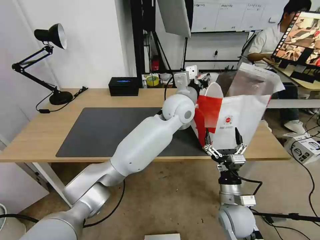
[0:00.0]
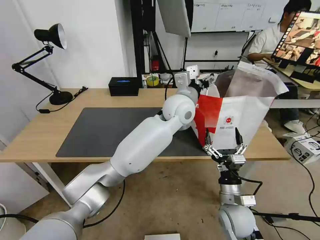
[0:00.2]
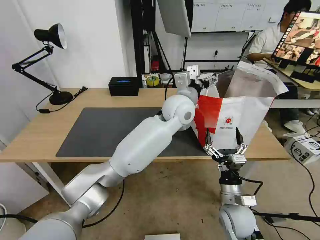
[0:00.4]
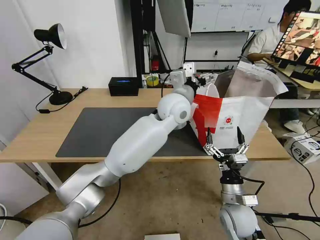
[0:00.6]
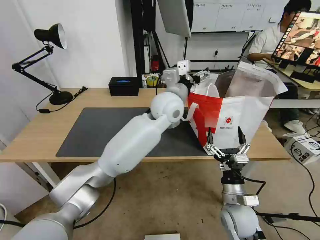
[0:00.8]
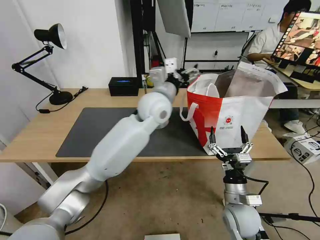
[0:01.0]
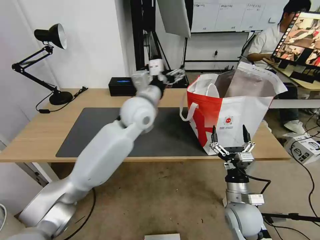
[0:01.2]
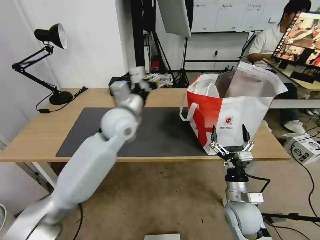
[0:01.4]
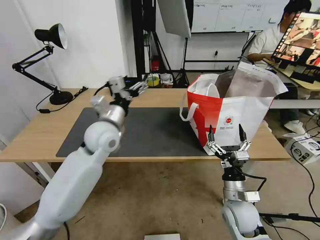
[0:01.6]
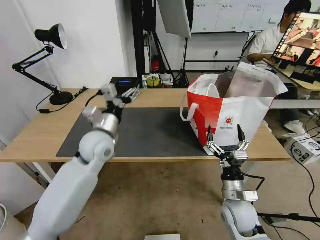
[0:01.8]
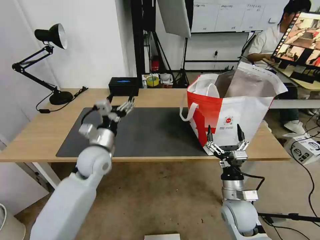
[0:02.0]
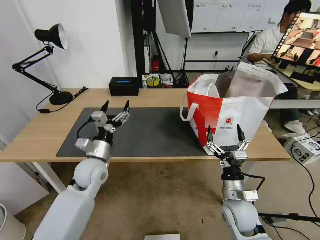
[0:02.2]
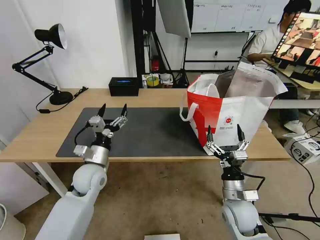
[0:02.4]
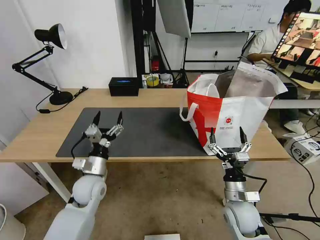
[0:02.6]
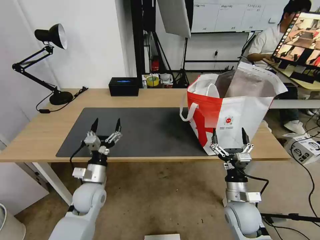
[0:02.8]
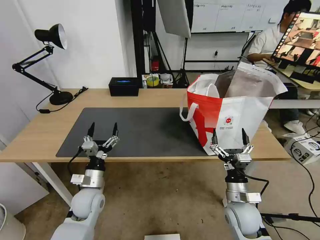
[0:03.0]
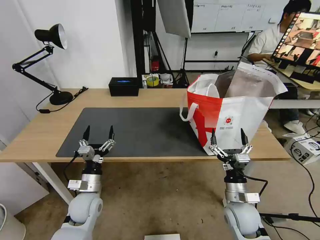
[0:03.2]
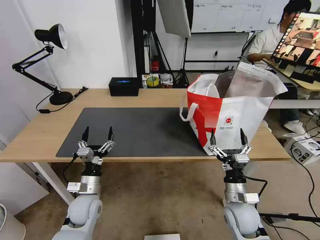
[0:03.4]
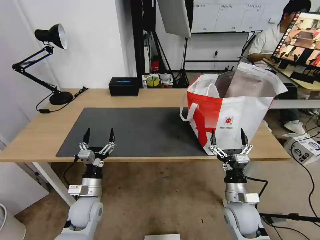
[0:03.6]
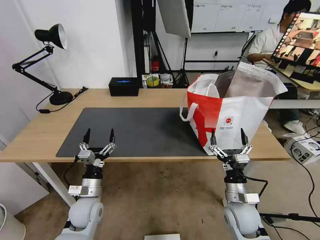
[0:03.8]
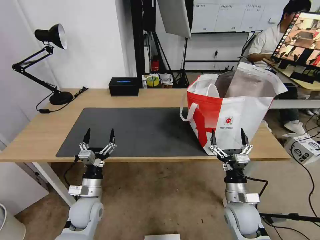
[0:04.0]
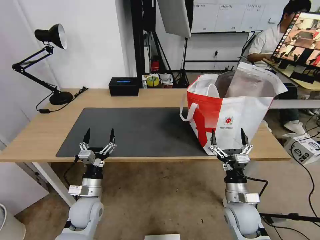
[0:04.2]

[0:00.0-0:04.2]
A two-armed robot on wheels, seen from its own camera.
Task of the whole recording: Pick up the trash from the table and place it into the takeout bag.
0:00.0 to 0:01.4: The left gripper is displaced to the left by approximately 20 cm, and opens.
0:01.4 to 0:02.8: The left gripper travels downward, backward and to the left by about 25 cm.
0:02.8 to 0:04.2: The left gripper changes place by some 5 cm.

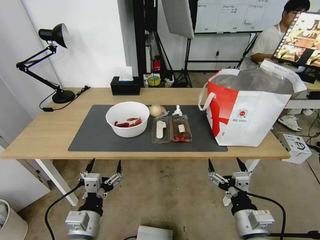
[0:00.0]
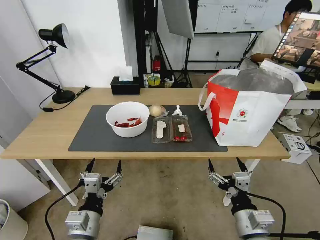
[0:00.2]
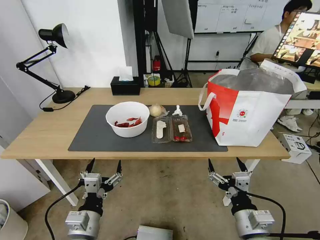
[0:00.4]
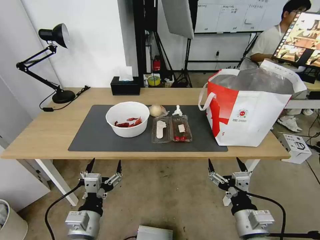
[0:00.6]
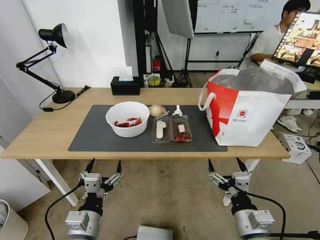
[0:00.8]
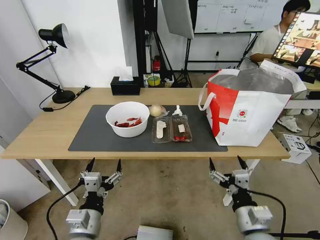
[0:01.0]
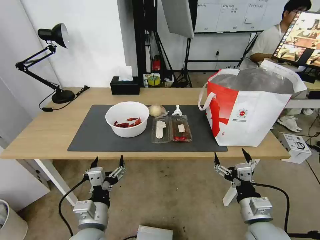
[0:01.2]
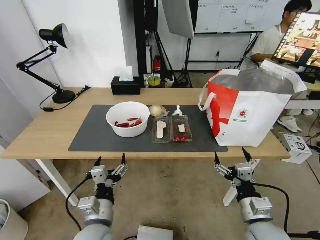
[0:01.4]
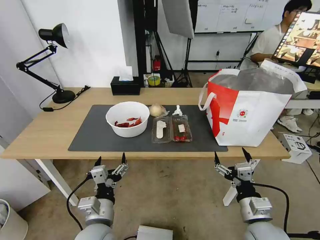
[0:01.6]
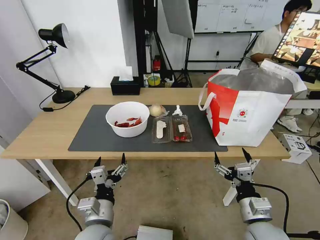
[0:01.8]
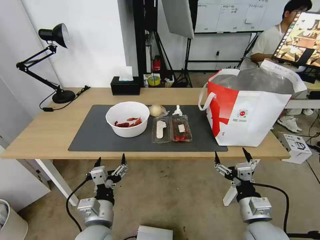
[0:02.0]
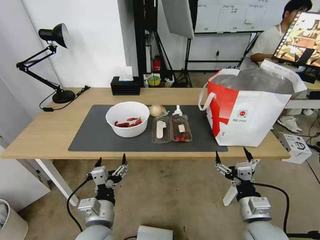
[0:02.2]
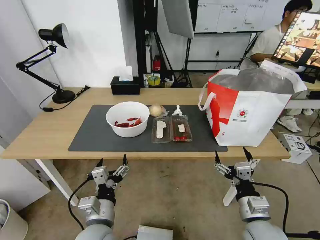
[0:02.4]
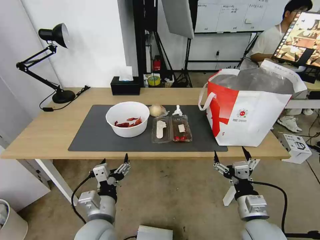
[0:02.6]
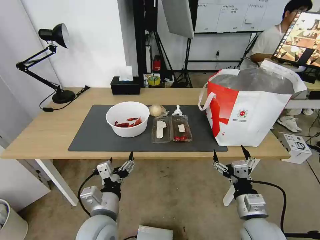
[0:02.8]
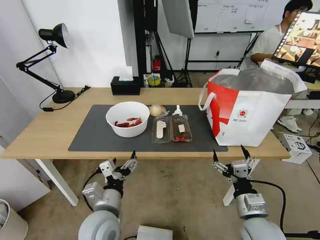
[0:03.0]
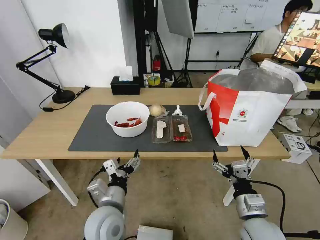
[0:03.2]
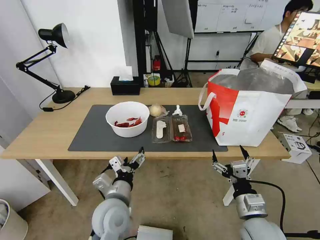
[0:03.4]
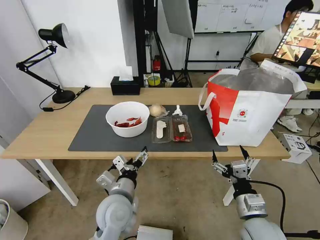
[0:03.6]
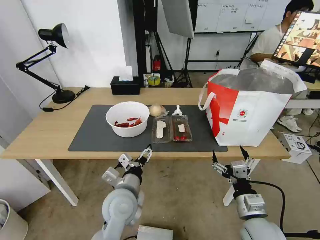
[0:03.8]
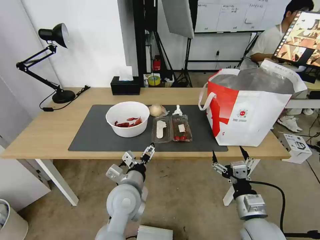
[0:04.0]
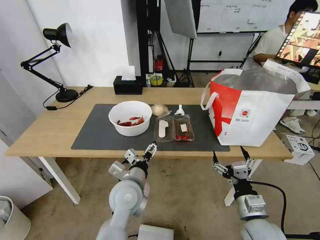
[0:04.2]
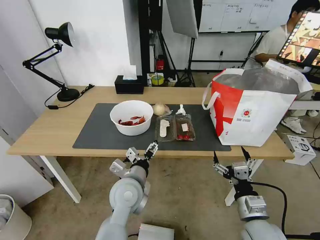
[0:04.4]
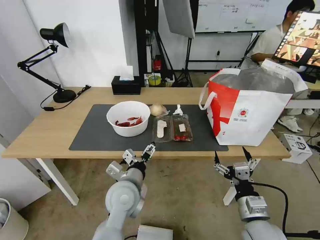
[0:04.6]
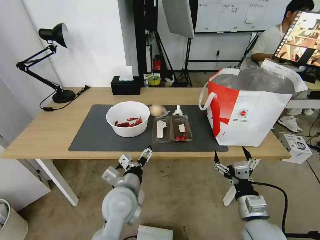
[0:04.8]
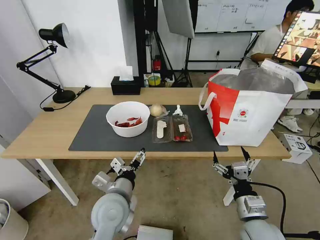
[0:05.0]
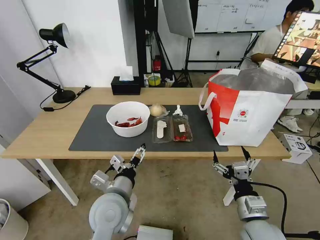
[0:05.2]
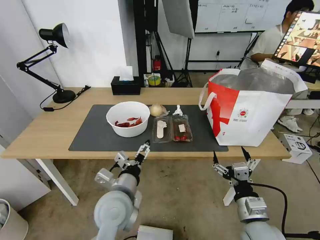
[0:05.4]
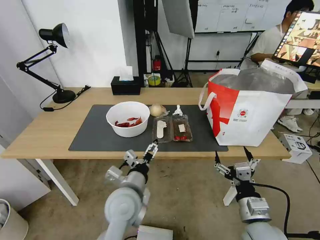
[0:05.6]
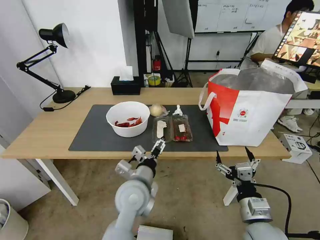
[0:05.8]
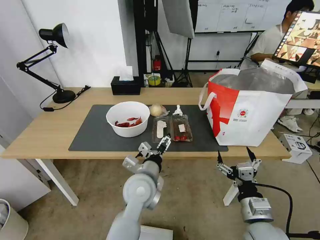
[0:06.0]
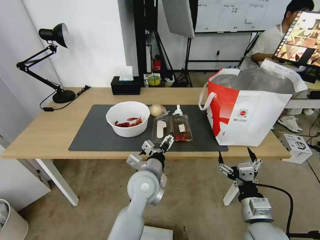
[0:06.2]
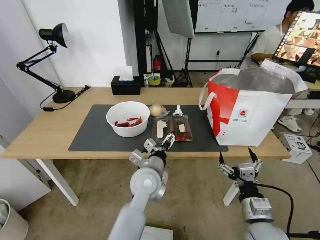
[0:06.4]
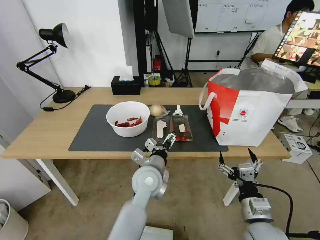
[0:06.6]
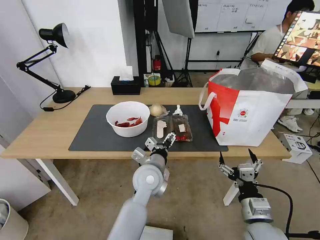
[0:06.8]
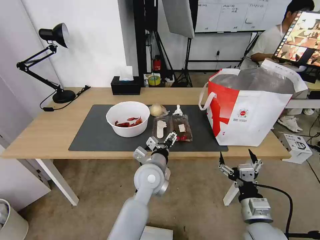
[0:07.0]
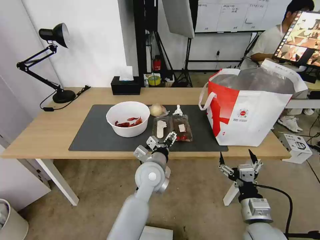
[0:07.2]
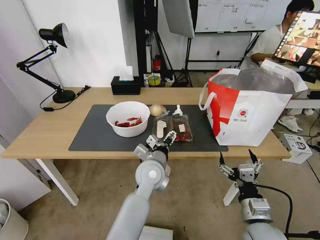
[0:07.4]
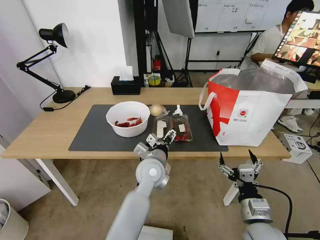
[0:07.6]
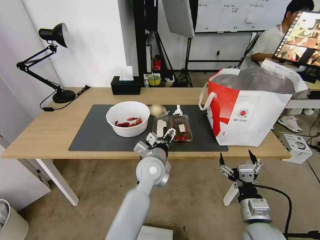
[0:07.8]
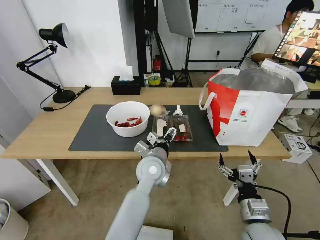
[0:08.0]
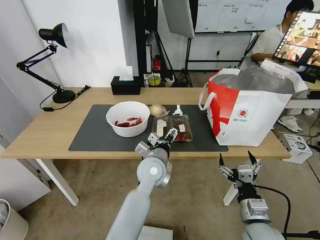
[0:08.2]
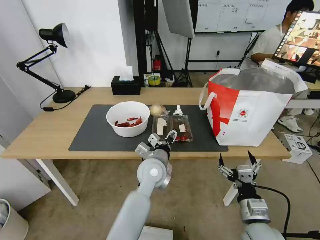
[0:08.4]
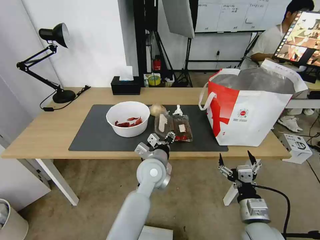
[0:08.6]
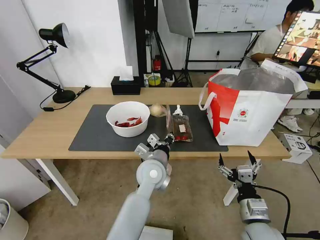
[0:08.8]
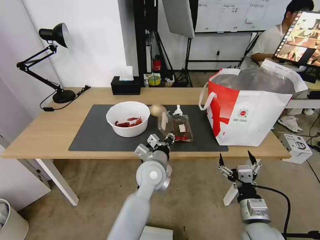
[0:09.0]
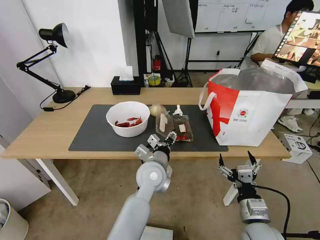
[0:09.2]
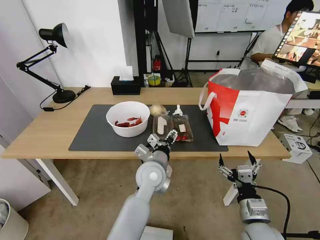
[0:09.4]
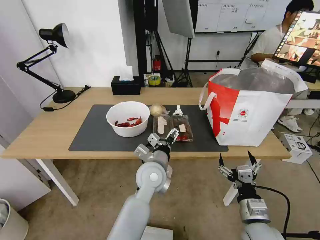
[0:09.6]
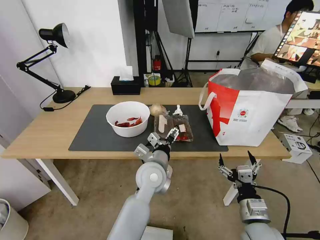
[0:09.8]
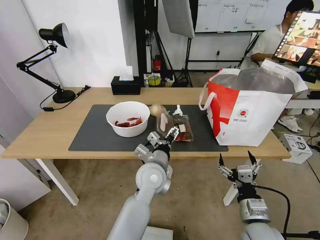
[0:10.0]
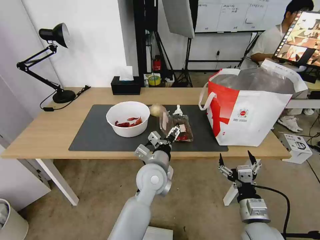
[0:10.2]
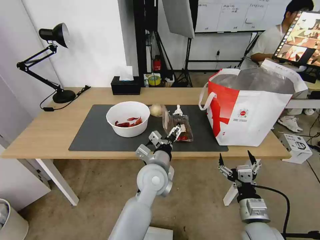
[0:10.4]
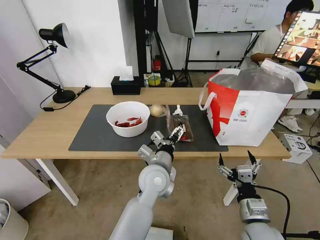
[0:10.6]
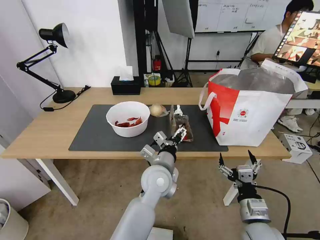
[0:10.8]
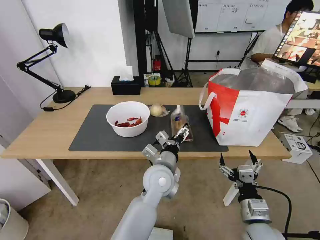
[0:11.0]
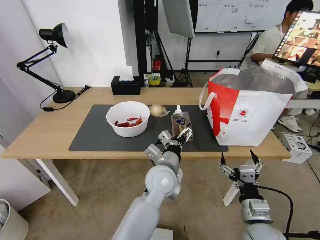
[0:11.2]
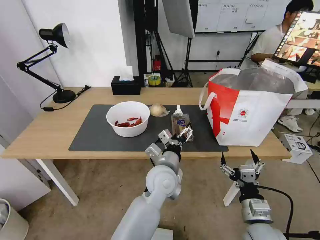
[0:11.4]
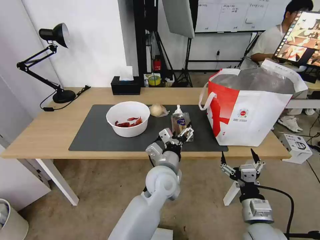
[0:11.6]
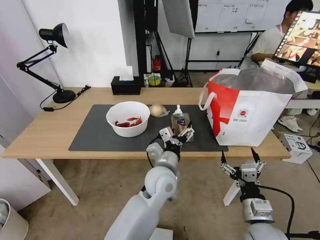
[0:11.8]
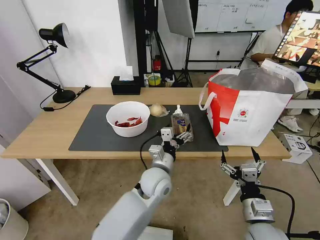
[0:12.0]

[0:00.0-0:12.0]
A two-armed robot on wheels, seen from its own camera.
Task of the whole recording: Pick up the trash from the table and place it into the takeout bag.
0:03.0 to 0:04.4: The left gripper goes some 10 cm forward and to the right.
0:06.0 to 0:07.6: The left gripper goes some 5 cm forward.
0:07.6 to 0:09.0: The left gripper closes its fingers.
0:09.0 to 0:10.4: The left gripper opens.

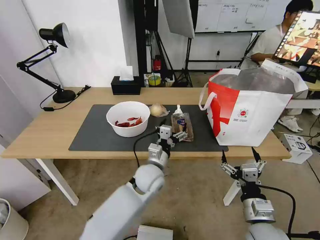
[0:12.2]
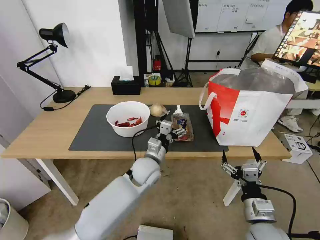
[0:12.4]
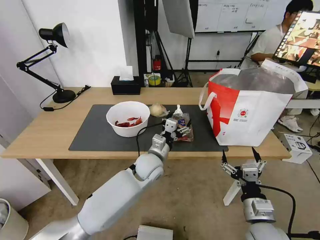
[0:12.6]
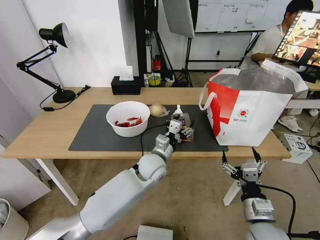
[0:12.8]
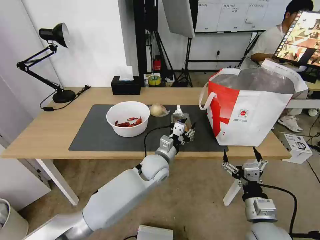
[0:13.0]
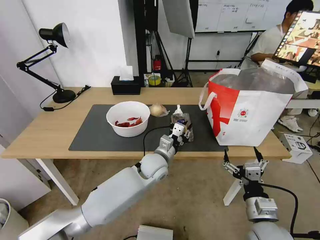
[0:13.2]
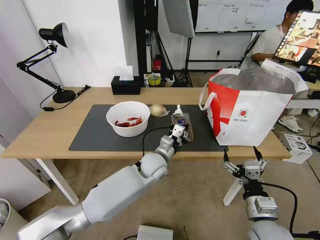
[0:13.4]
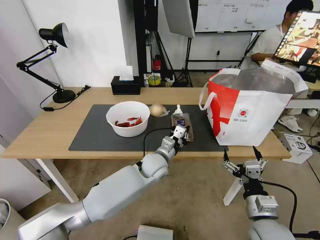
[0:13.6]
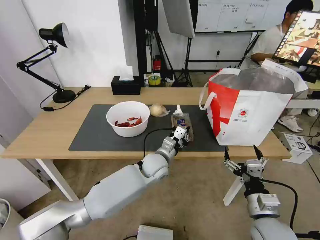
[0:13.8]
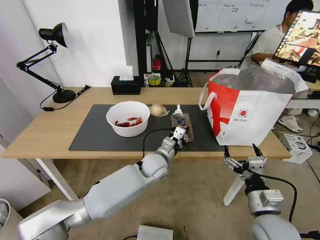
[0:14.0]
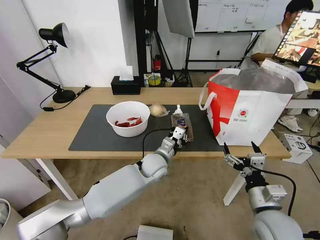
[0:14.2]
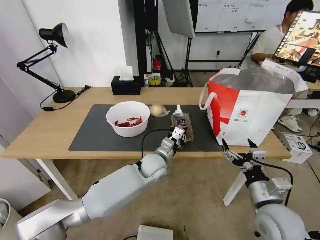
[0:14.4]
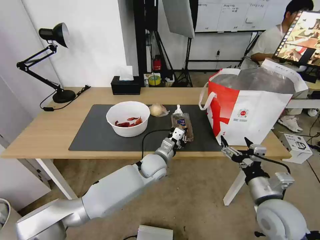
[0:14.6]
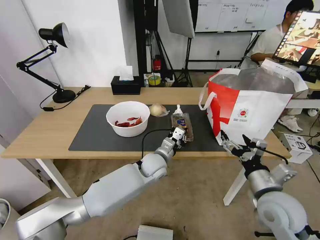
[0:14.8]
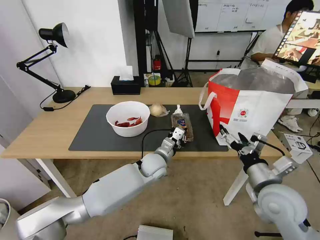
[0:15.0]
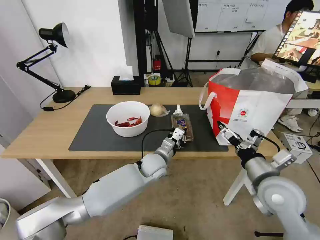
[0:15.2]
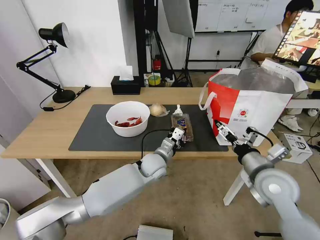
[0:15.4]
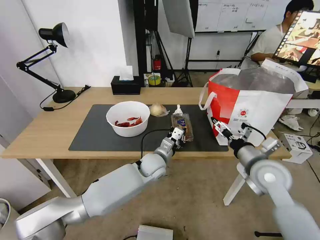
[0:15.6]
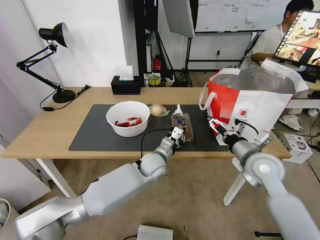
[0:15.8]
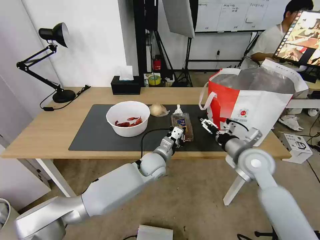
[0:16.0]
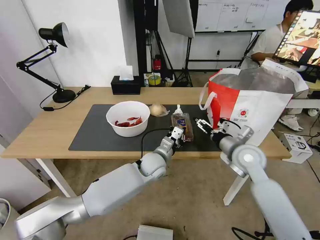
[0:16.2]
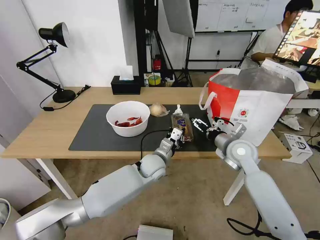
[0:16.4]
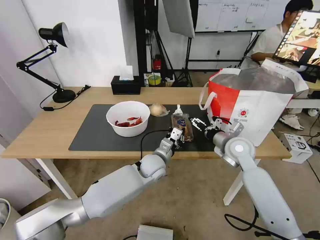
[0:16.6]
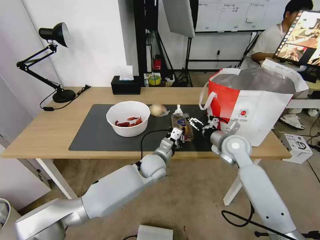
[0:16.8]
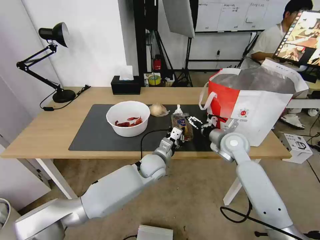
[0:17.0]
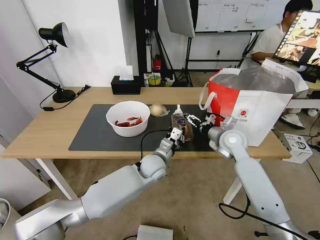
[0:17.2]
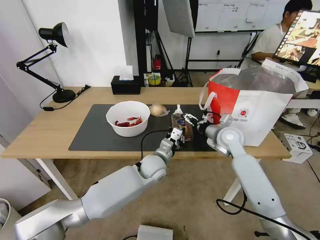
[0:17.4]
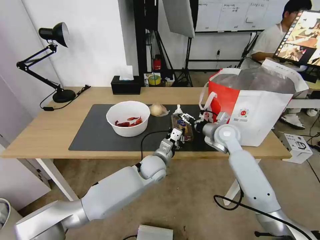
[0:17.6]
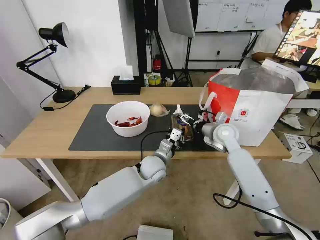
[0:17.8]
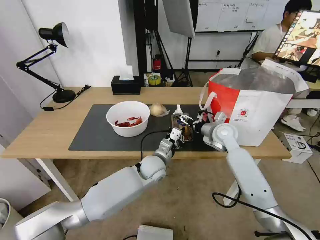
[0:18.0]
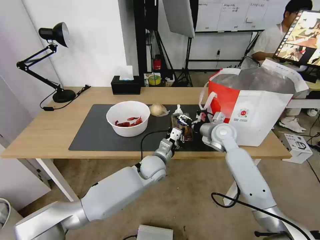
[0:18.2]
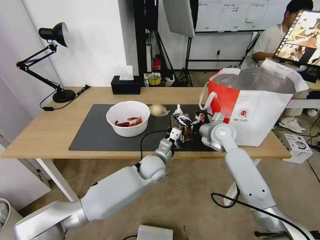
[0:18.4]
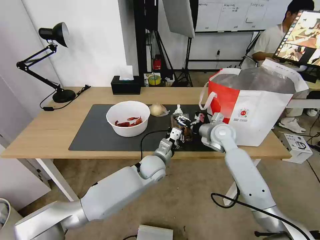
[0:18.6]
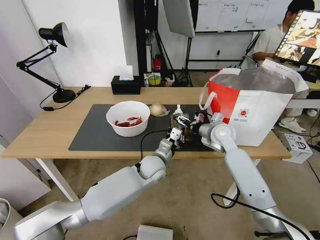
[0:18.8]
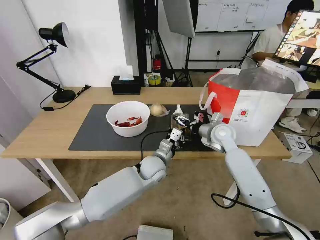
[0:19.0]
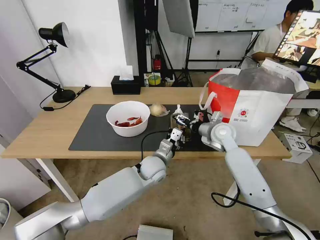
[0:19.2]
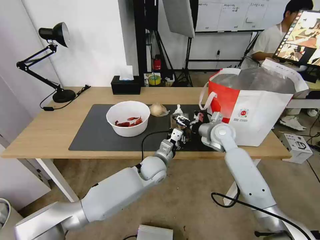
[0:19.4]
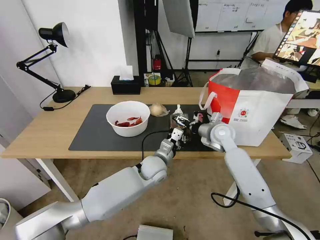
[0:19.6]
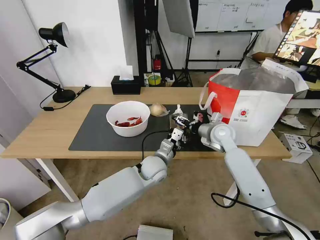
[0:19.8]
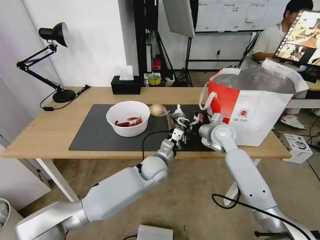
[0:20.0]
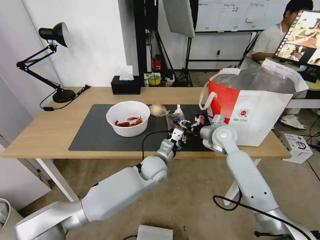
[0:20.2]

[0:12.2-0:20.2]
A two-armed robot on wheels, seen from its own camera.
Task of the whole recording: Pick up the trash from the table and place it into the takeout bag.
0:12.2 to 0:13.8: The left gripper is displaced forward by about 10 cm, and closes.
0:13.8 to 0:15.4: The right gripper is displaced forward and upward by roughly 15 cm.
0:15.4 to 0:17.0: The right gripper goes some 15 cm forward.
0:17.0 to 0:18.6: The right gripper moves about 5 cm.
0:18.6 to 0:20.2: The right gripper closes up.
